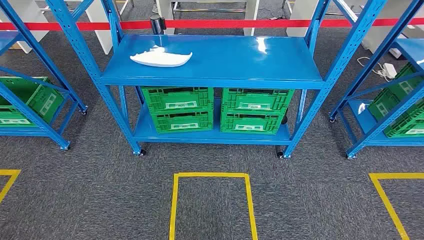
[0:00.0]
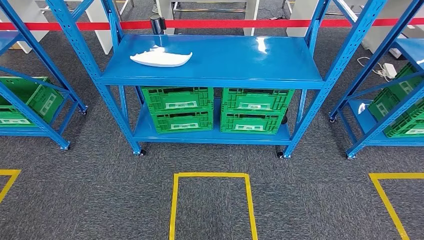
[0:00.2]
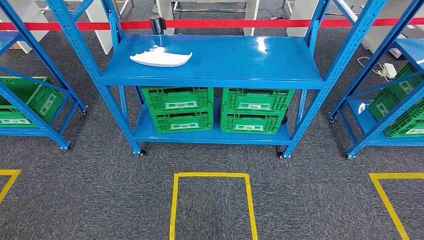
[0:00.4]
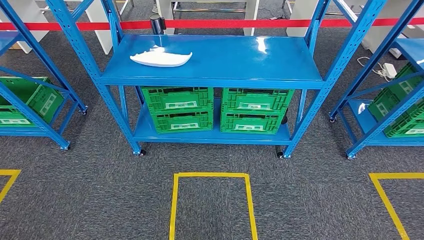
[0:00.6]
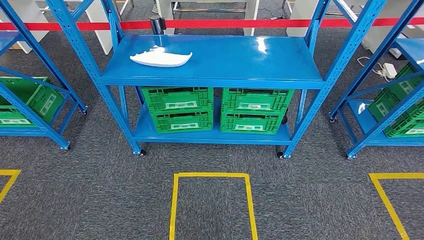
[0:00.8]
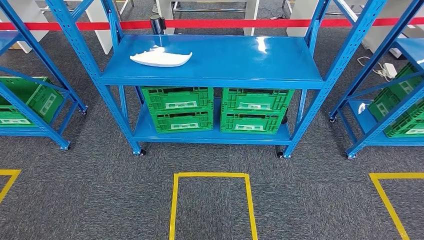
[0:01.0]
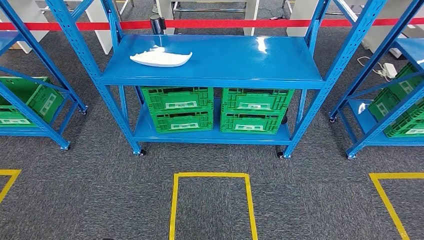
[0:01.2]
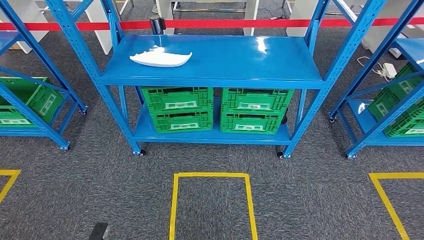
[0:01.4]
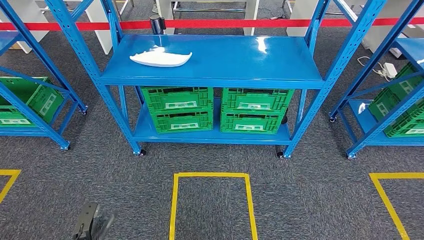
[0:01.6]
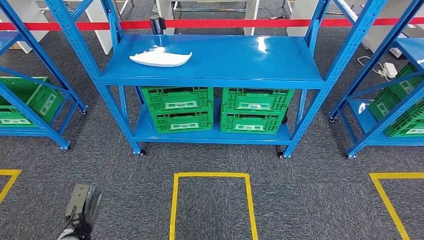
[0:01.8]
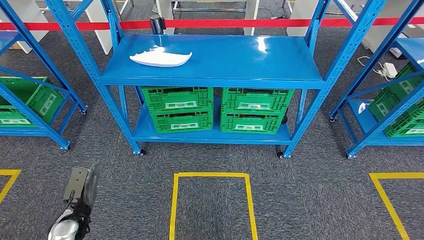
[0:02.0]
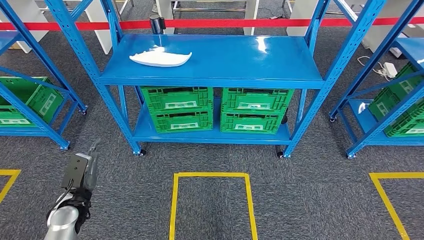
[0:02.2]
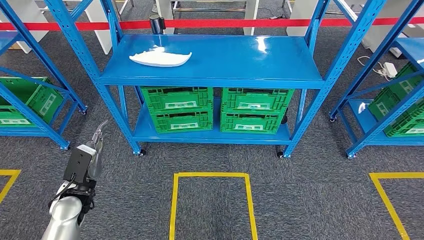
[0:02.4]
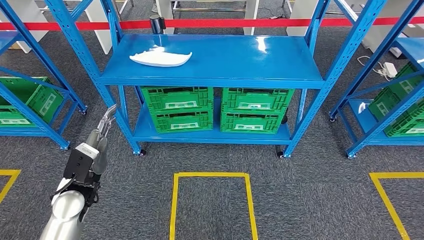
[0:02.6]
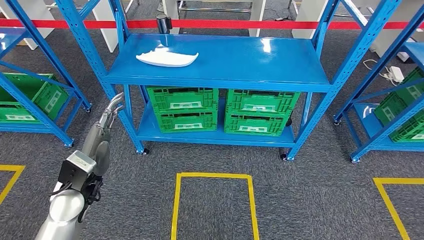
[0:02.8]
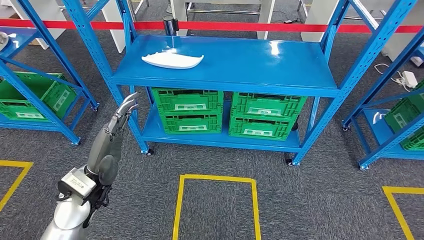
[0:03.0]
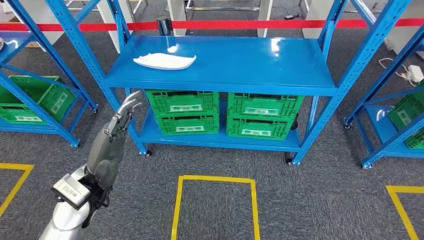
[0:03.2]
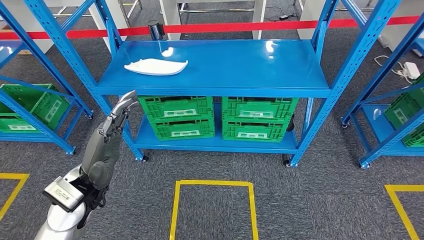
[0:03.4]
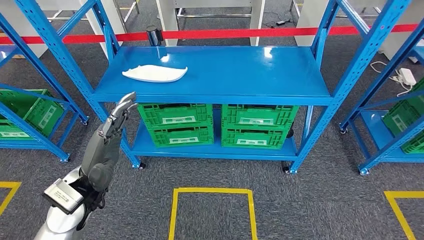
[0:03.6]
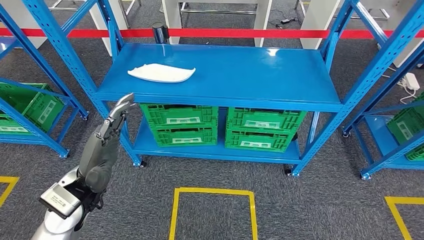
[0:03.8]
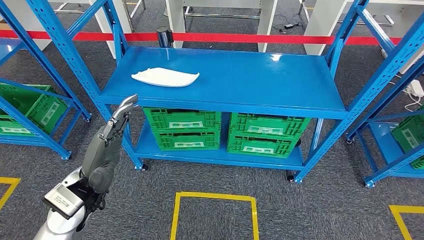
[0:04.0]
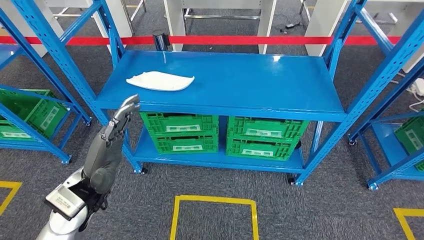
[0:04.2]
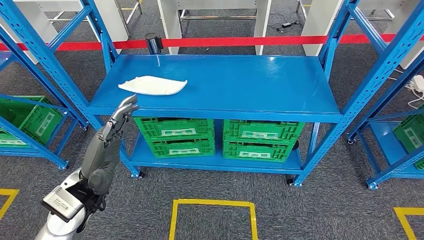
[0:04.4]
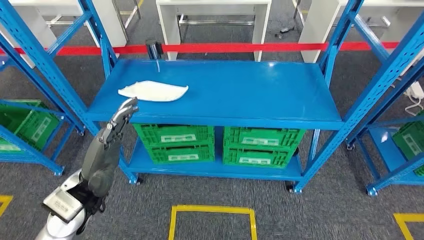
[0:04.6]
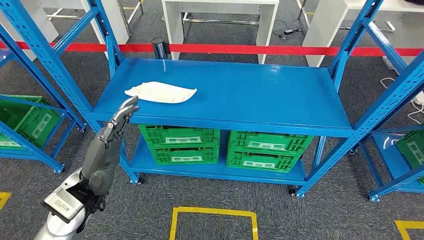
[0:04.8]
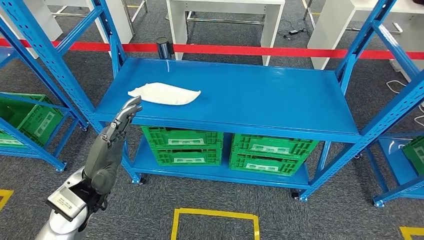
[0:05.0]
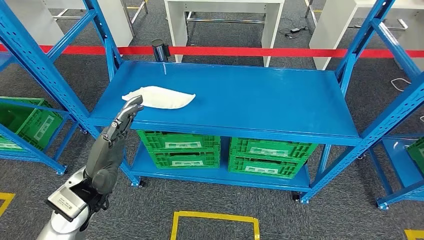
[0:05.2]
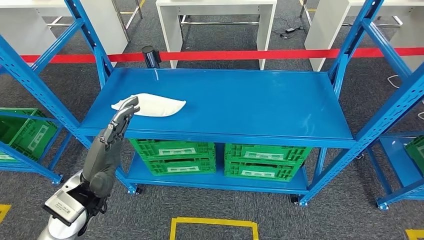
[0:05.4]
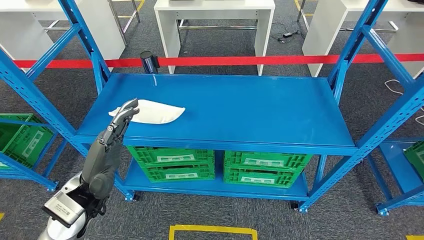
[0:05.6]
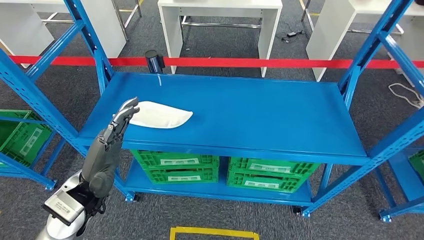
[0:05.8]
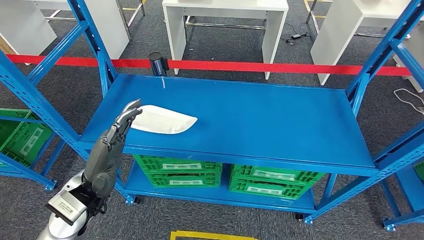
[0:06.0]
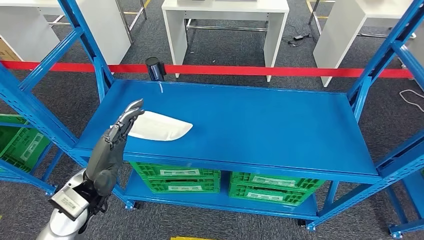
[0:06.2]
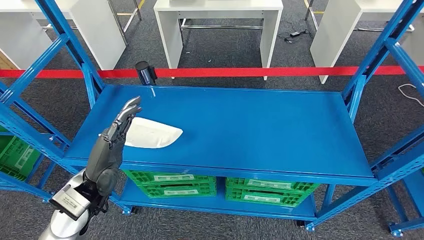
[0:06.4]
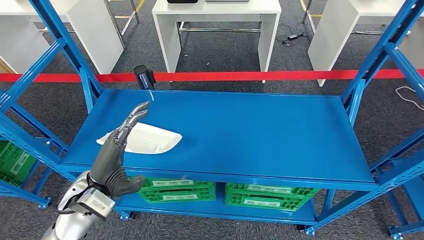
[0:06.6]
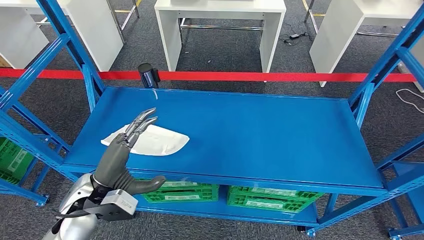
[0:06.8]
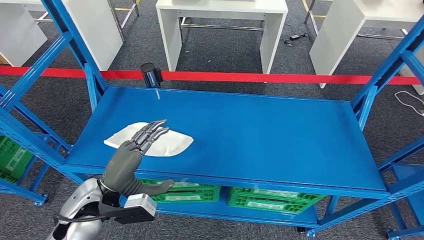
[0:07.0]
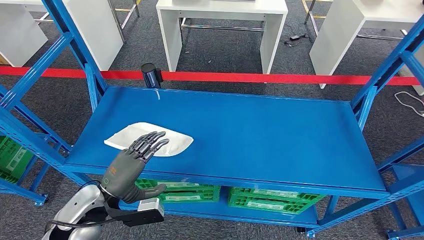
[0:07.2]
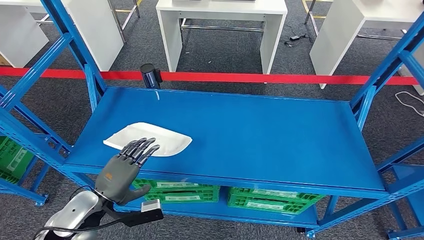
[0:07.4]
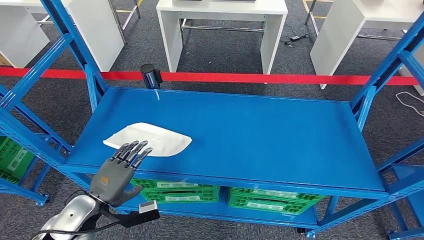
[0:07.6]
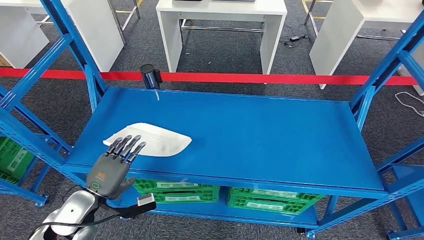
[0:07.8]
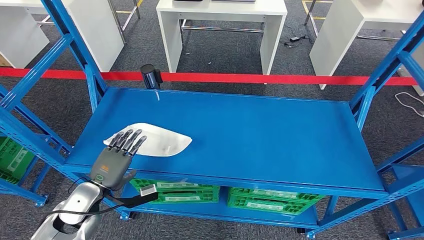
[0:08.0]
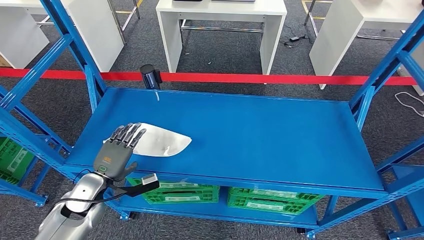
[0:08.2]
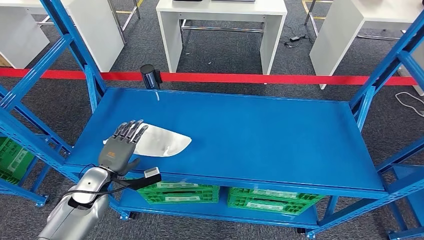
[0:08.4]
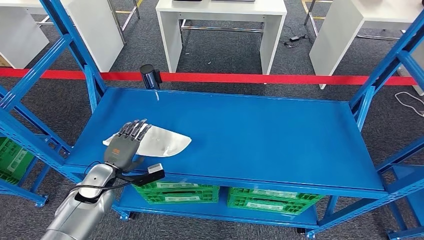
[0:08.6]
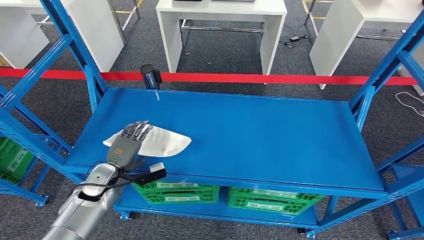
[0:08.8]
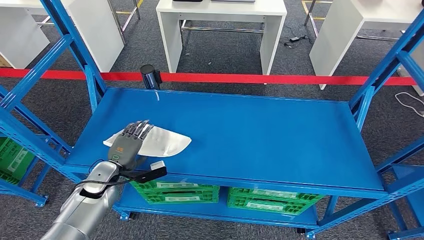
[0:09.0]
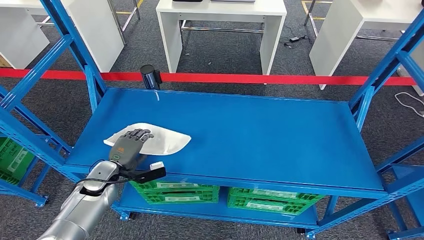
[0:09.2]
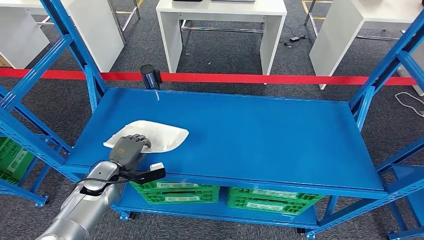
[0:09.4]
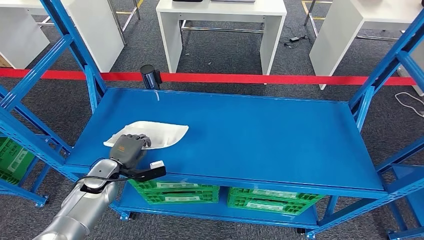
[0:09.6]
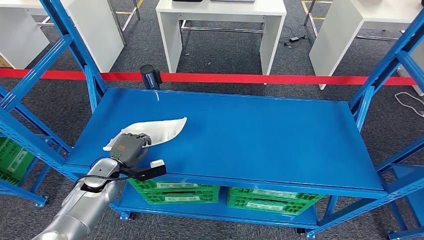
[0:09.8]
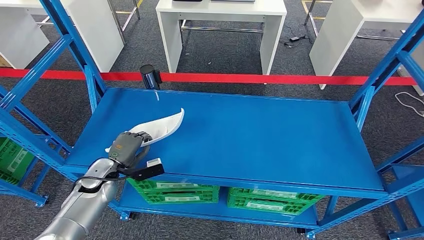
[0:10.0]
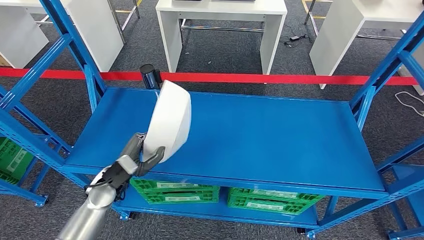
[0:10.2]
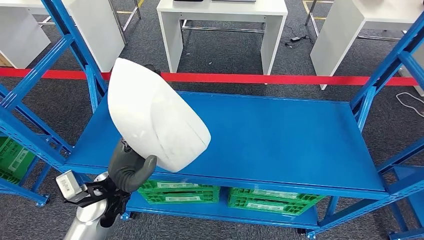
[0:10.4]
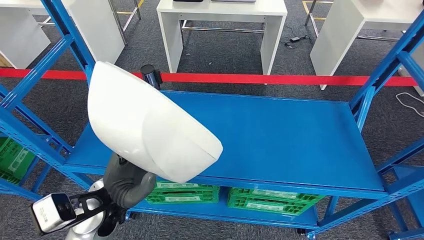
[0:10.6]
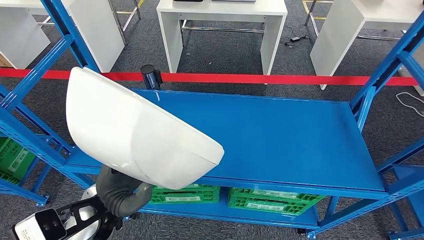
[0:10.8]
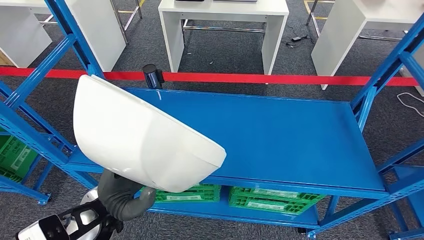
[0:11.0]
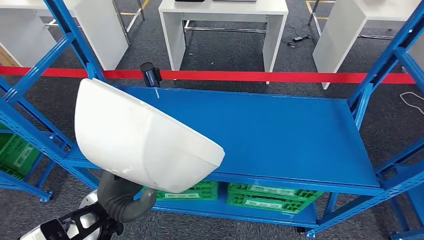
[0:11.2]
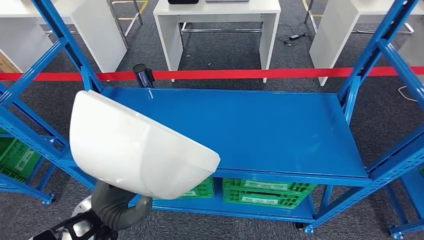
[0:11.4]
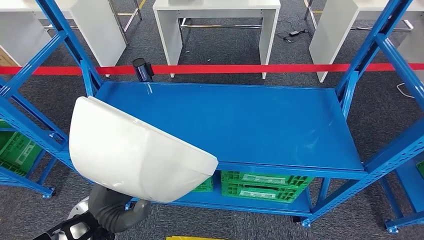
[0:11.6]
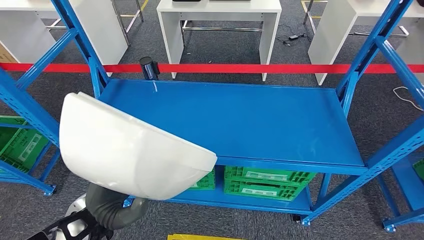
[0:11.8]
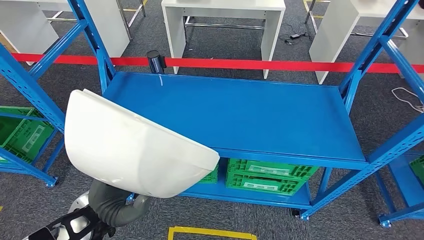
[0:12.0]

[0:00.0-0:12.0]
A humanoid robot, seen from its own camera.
Step, 0:00.0 to 0:10.6: Take small components from the rack.
0:07.6 to 0:09.0: The left hand goes about 15 cm forward and downward.
0:09.0 to 0:10.4: The left hand heads upward, to the right and backward, covering approximately 15 cm.

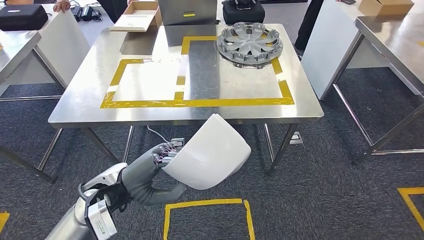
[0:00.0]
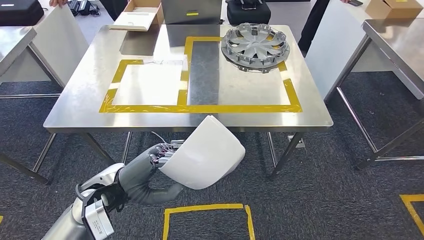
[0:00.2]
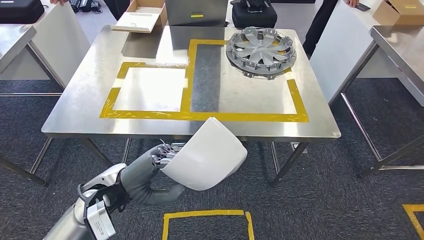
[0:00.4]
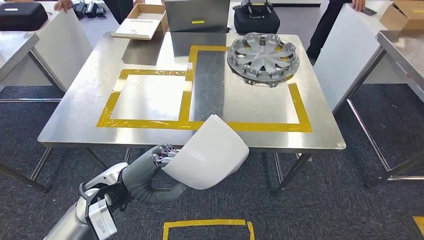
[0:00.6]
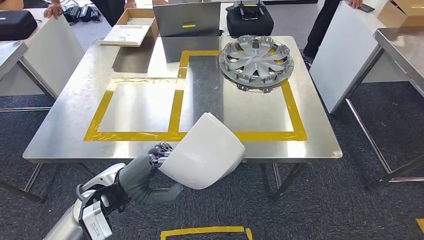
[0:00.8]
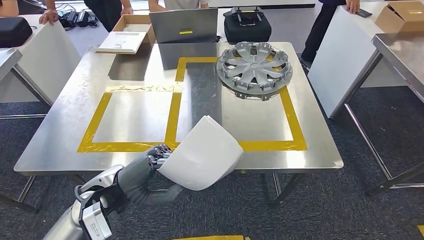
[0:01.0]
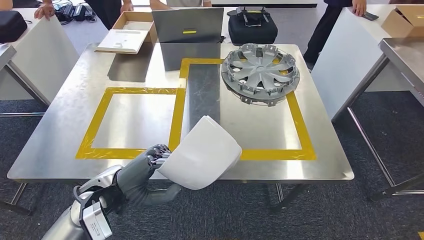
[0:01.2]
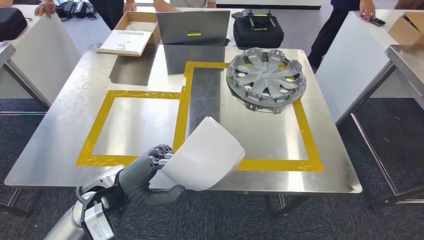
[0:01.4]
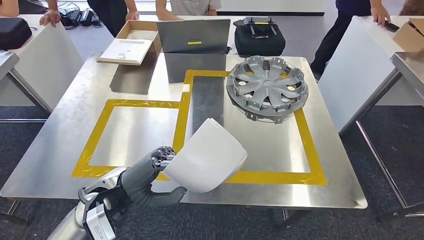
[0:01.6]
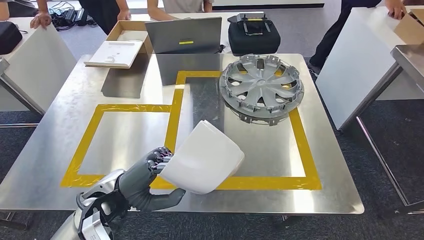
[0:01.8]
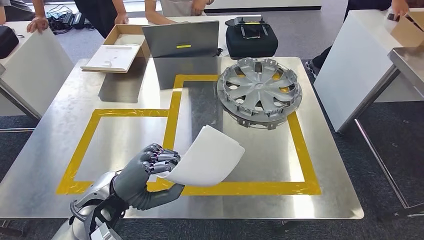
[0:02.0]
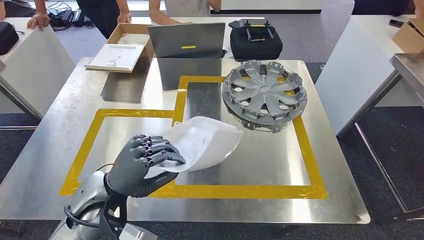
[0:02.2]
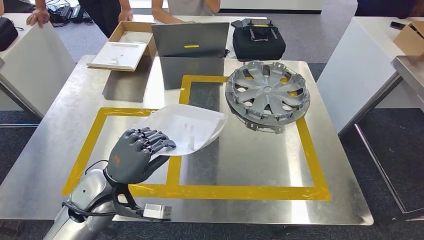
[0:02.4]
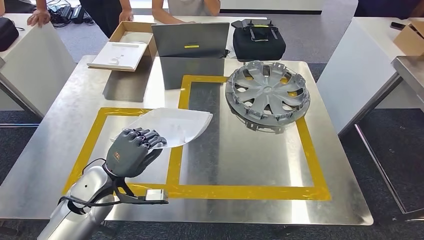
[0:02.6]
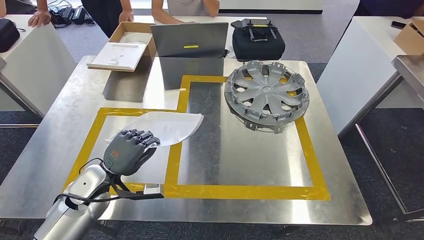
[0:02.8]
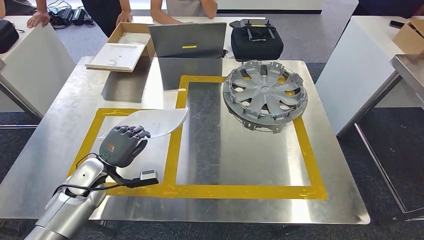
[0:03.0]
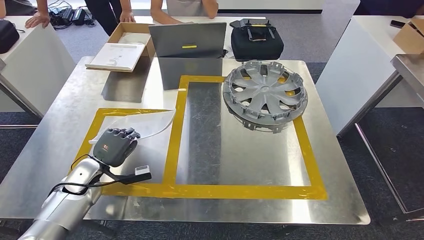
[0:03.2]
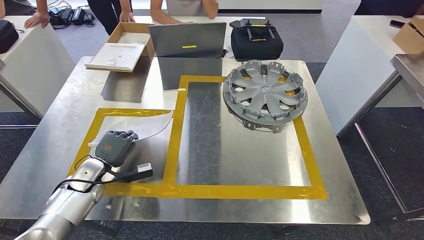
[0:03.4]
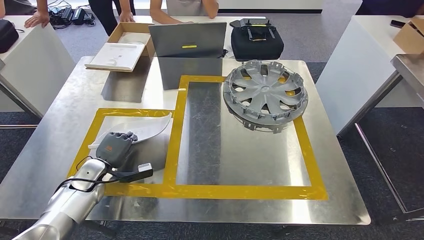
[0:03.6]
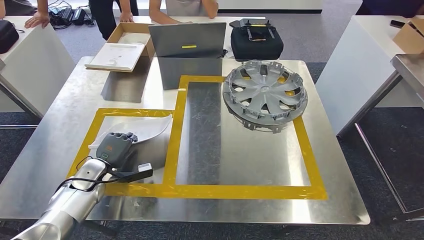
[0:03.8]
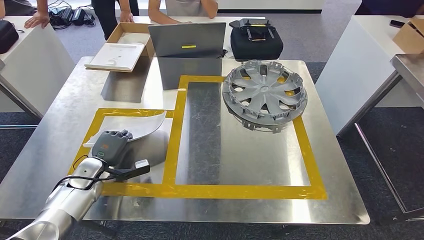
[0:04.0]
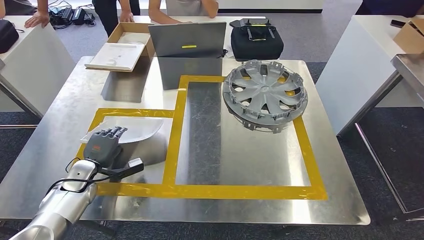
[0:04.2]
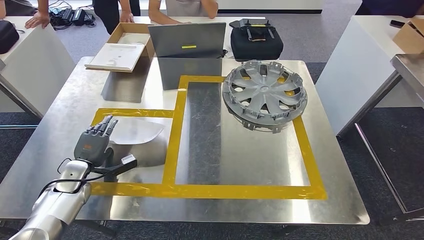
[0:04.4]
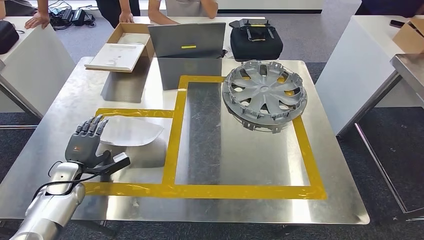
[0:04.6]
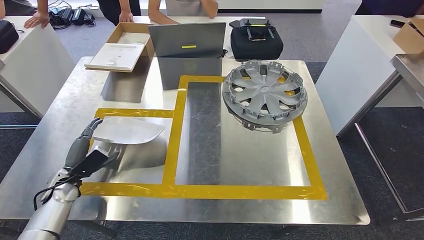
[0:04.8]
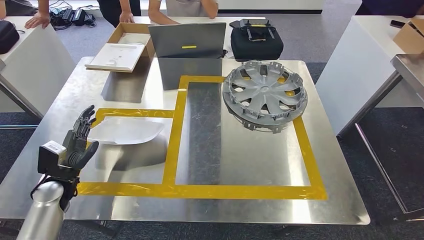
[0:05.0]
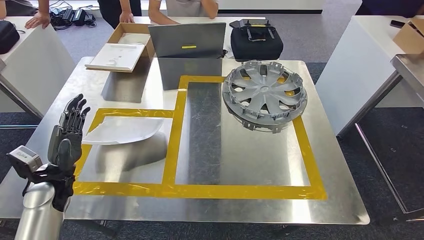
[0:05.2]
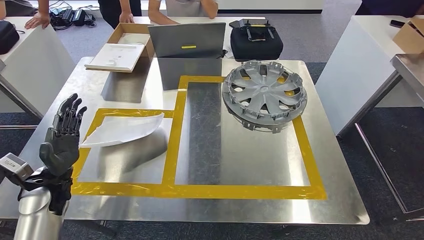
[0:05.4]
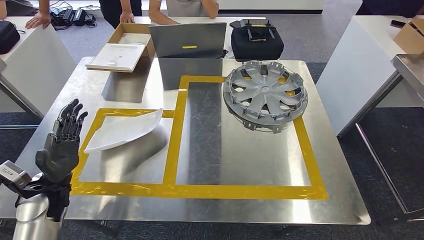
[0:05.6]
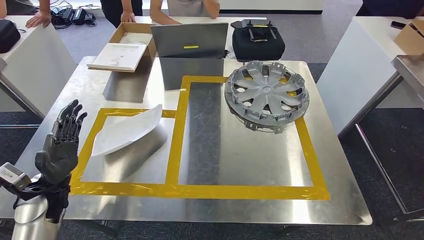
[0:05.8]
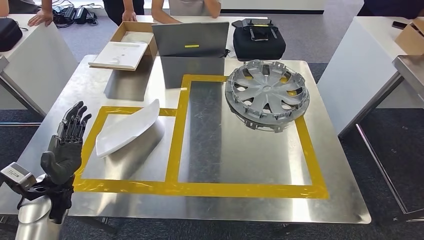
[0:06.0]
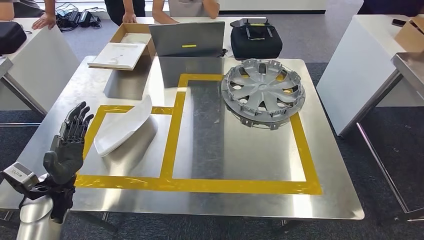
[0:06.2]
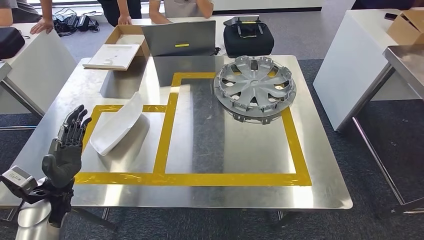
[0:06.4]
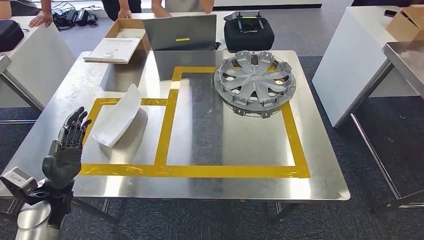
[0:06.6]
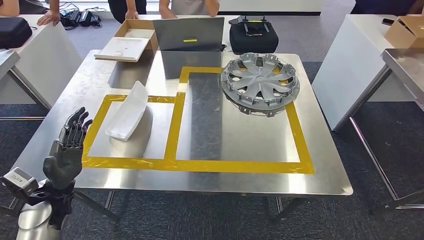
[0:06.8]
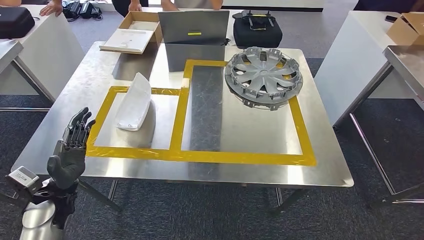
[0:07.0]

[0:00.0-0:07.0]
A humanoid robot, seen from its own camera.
Step, 0:00.0 to 0:02.6: Move the small parts to the workbench.
Step, 0:02.8 to 0:06.6: Insert the small parts into the corresponding holes on the workbench.
0:02.8 to 0:04.2: The left hand shifts some 15 cm to the left and downward.
0:04.2 to 0:05.6: The left hand goes approximately 10 cm upward and backward.
